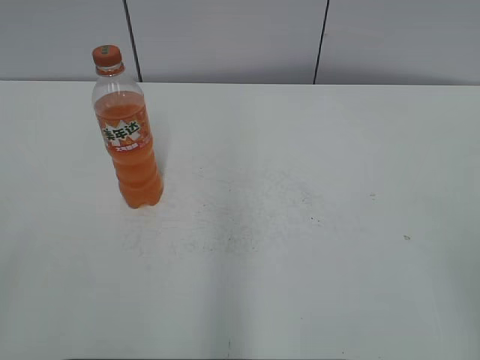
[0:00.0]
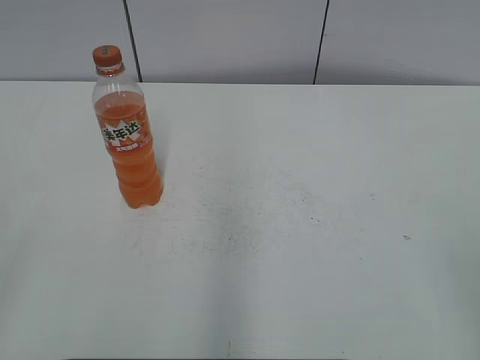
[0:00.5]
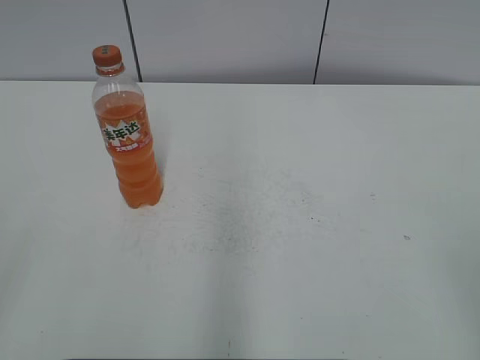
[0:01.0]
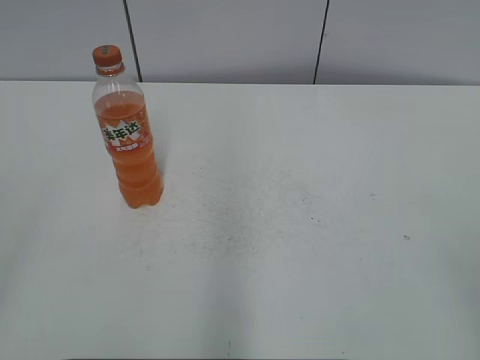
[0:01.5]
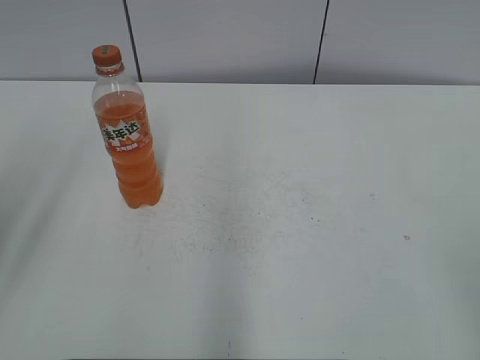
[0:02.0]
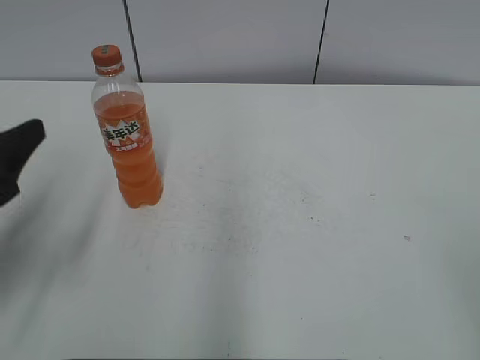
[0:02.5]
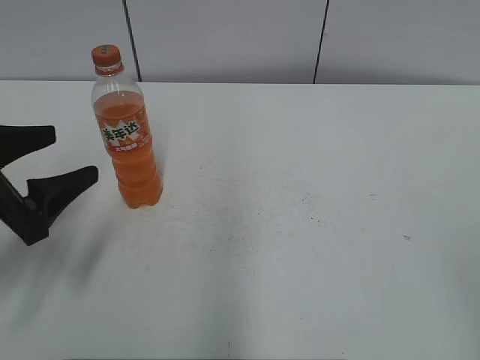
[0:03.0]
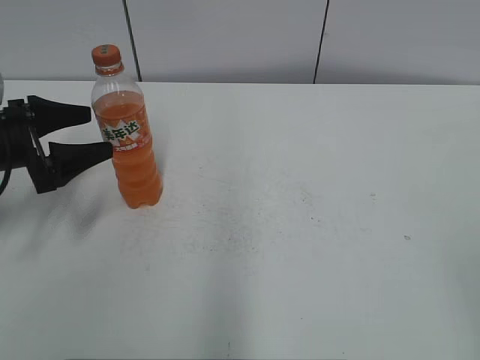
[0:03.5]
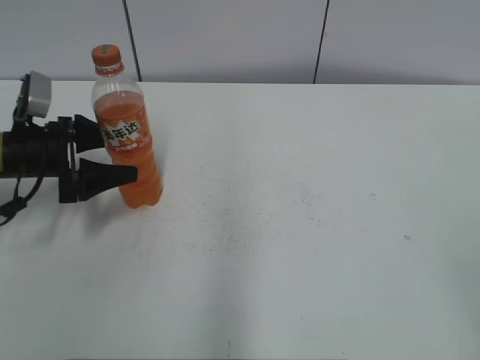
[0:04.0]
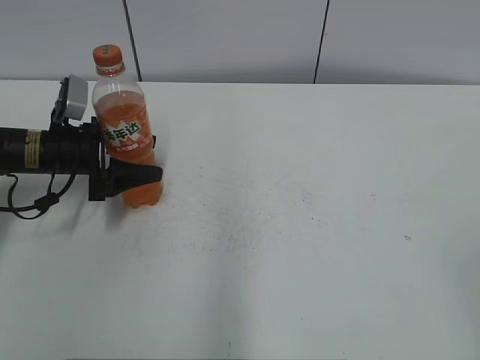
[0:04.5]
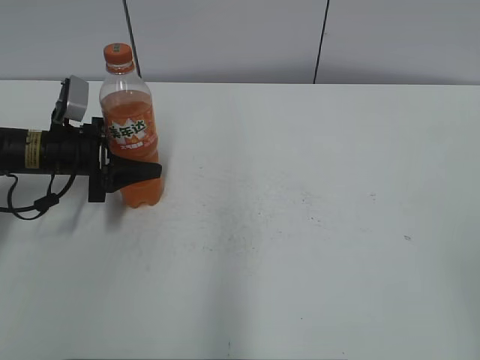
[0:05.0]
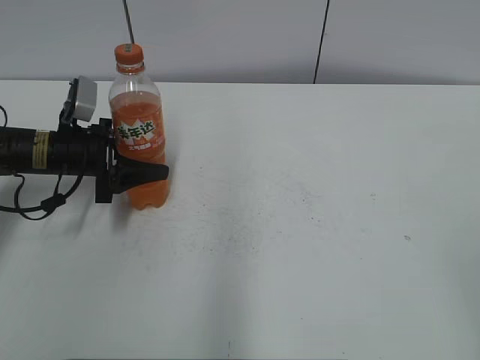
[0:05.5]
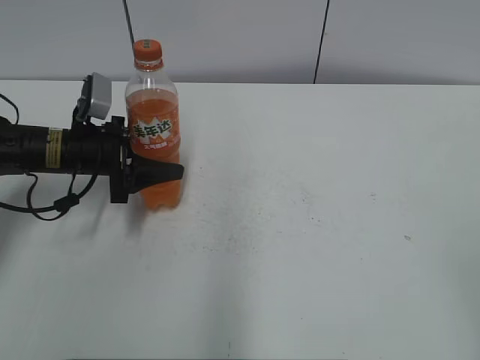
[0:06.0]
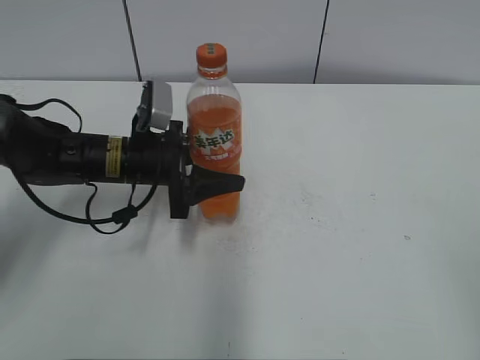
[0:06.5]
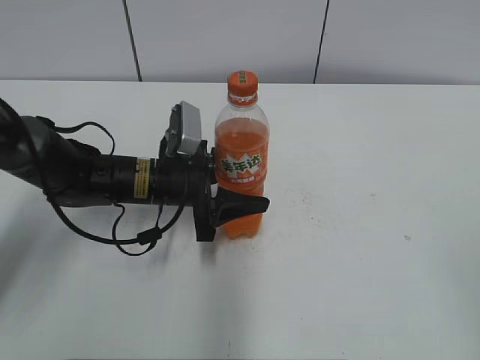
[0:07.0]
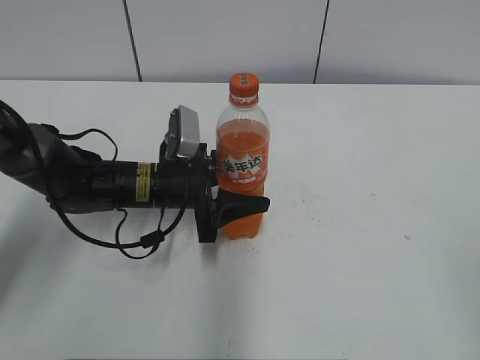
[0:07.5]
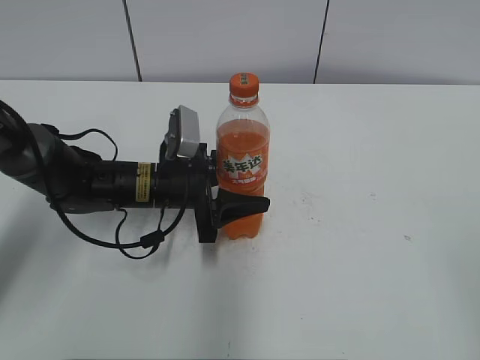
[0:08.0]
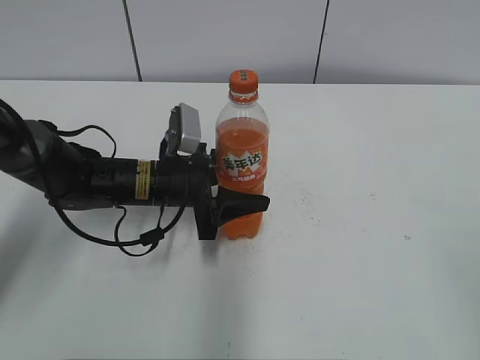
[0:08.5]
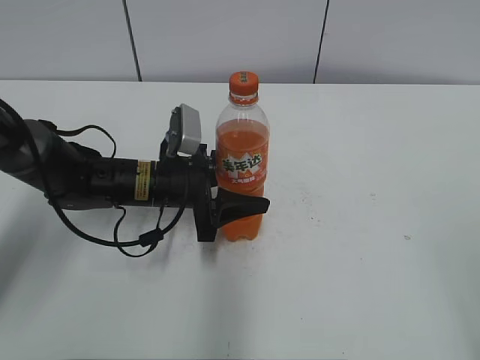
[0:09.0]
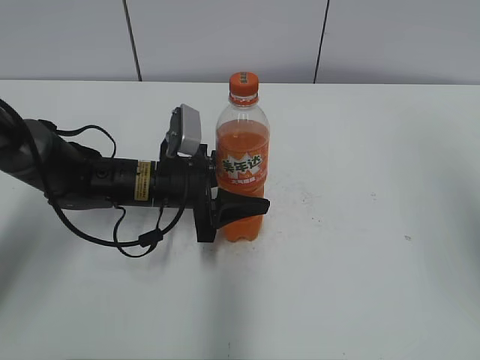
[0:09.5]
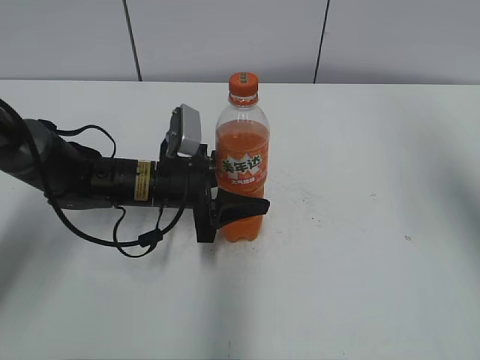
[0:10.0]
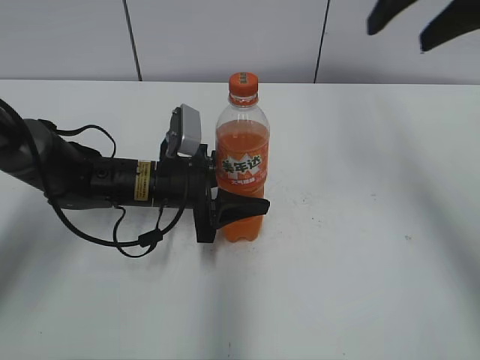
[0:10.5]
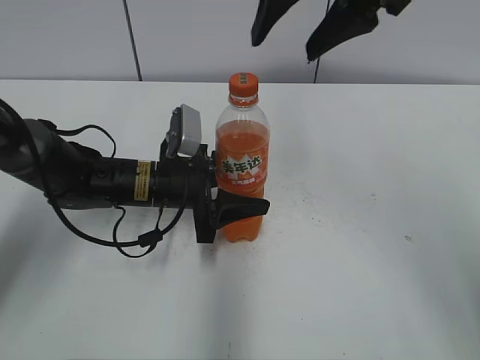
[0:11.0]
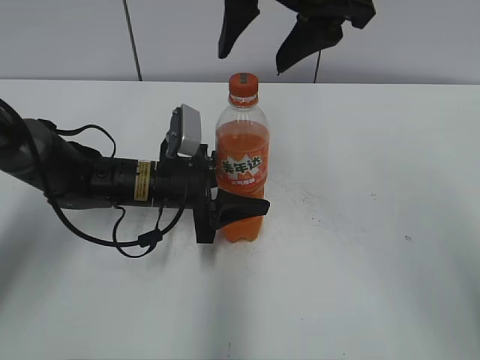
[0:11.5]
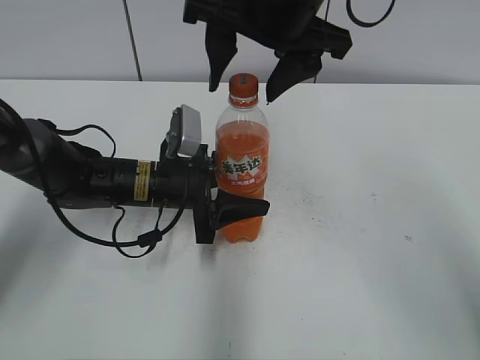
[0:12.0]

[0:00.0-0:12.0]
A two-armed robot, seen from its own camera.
Step, 0:00.0 to 0:04.5: Grab the Mirinda with the left hand.
Step, 0:05.0 to 0:09.0: Move the Mirinda from left to right.
0:02.0 to 0:04.0: The left gripper shifts about 30 cm downward and forward.
0:04.0 to 0:06.0: The left gripper shifts approximately 5 cm to the right, and closes its fingers.
0:06.0 to 0:08.0: The left gripper heads to the right, covering some 10 cm.
0:08.0 to 0:10.0: The right gripper travels forward by roughly 25 cm.
0:10.0 to 0:12.0: The right gripper is displaced to the left by about 25 cm.

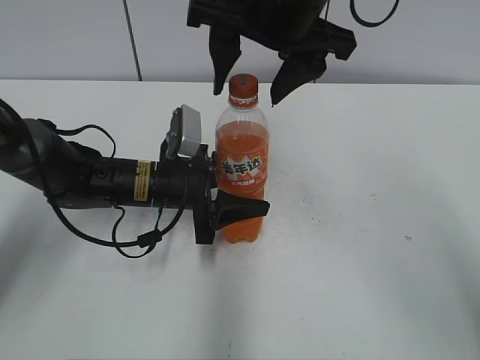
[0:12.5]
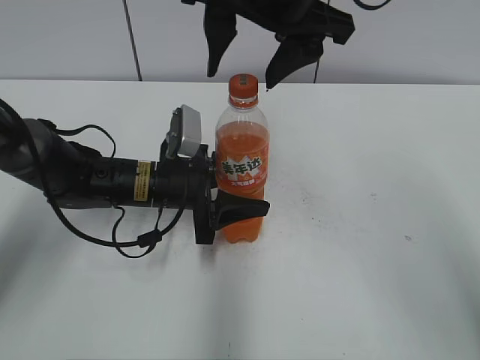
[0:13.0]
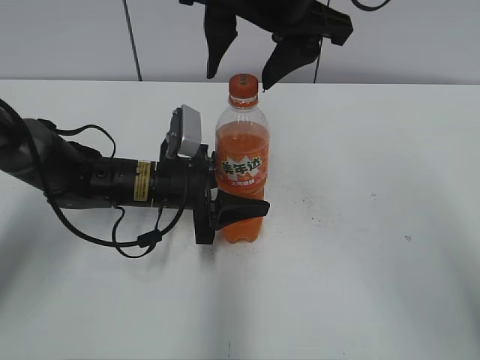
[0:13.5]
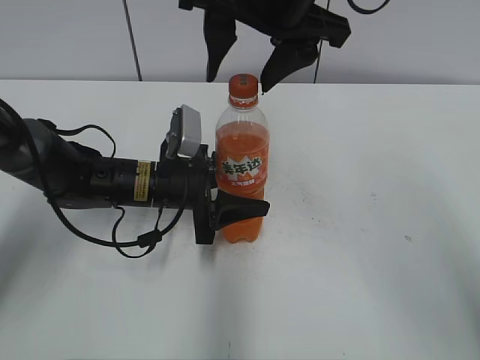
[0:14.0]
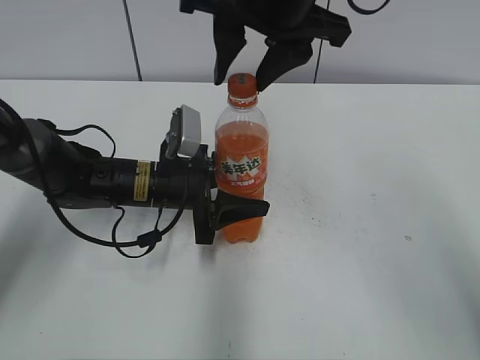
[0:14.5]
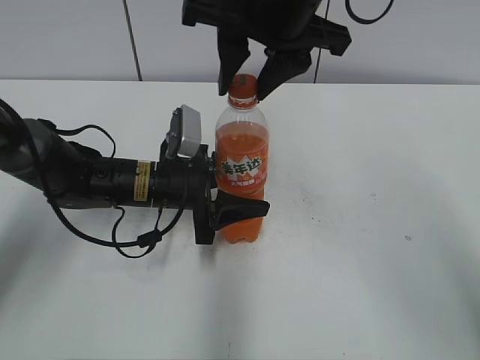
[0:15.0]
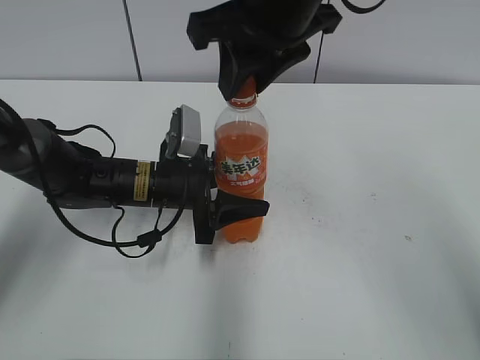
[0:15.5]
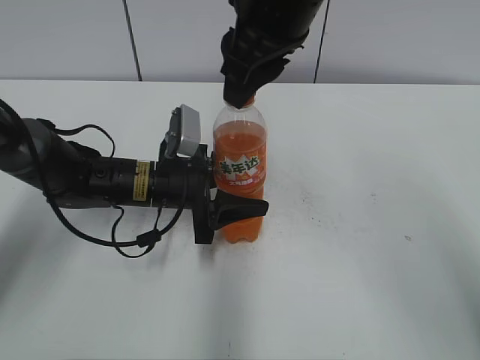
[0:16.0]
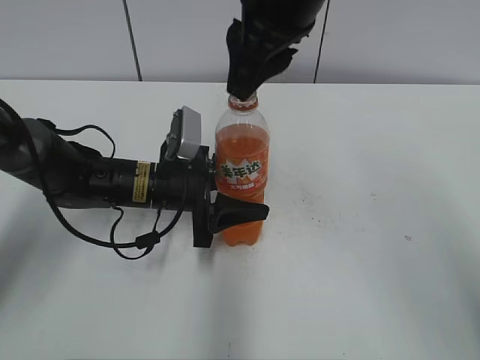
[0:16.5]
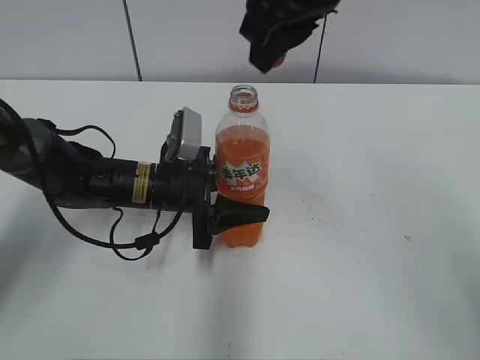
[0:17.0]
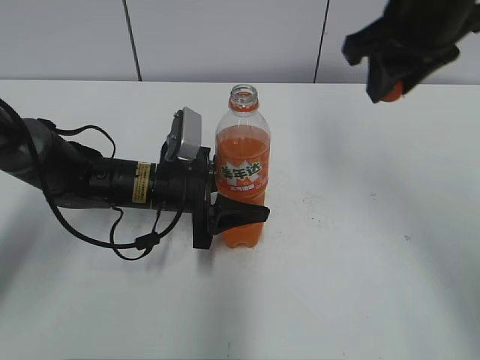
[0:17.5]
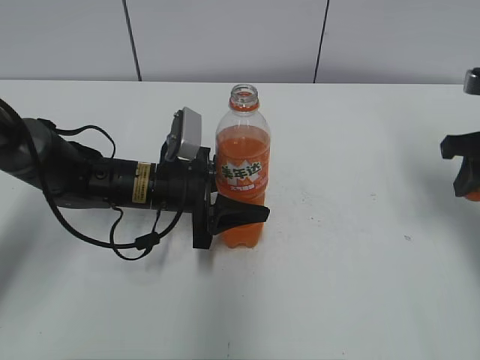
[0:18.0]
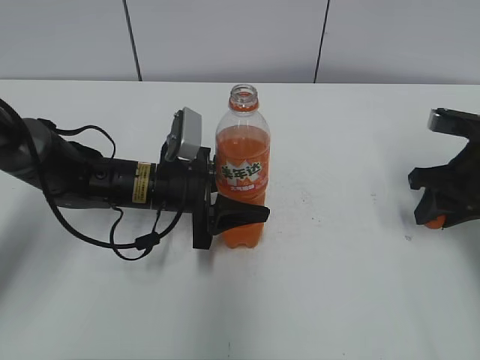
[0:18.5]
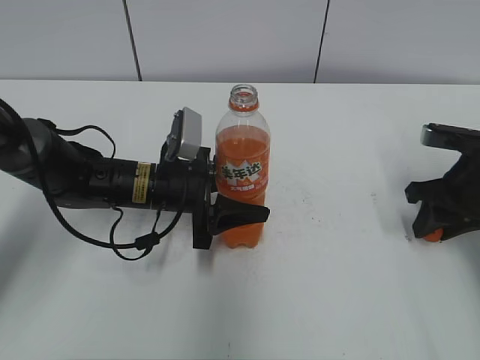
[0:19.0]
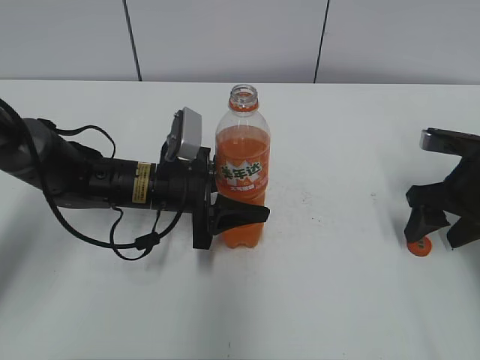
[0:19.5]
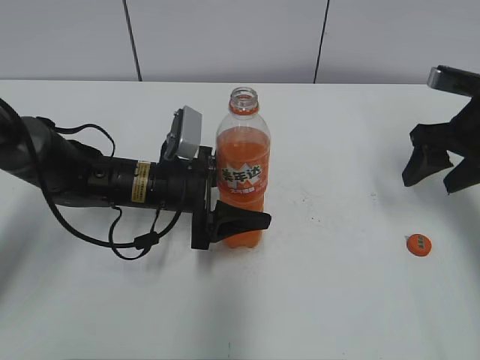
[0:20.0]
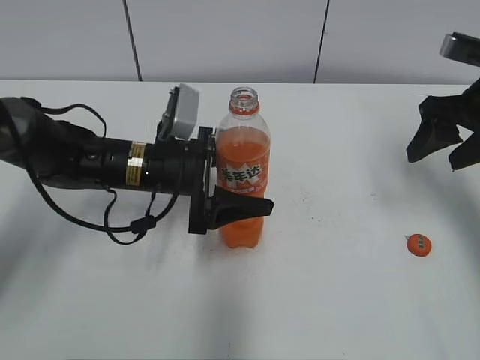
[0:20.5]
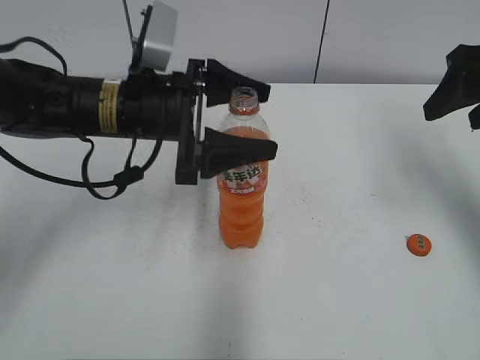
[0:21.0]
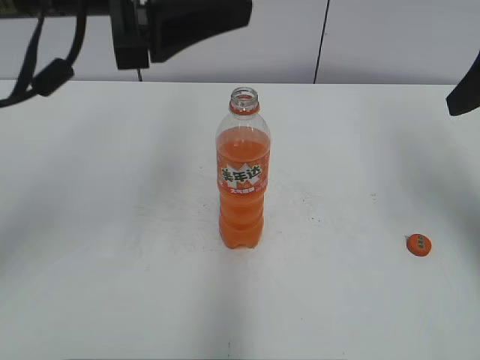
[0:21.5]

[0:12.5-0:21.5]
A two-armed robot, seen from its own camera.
Step, 0:12.5 to 0:16.0: Twist the bottle cap with the right hand.
Step, 0:17.0 to 0:19.0: Place the bottle cap on the right.
0:12.5 to 0:14.5: The right gripper closes.
0:14.5 to 0:17.0: The right gripper closes.
0:17.0 to 0:19.5: The right gripper is displaced to the right and downward by roughly 35 cm, and opens.
0:19.5 to 0:21.5: The grippers both shift upward by about 20 cm. The left gripper opens up.

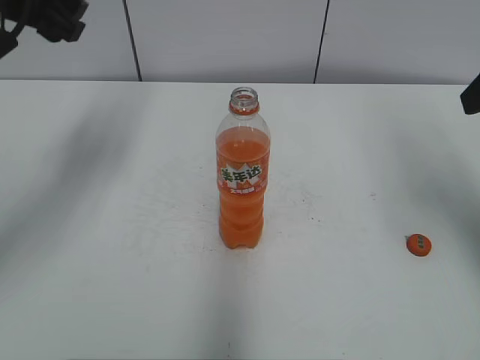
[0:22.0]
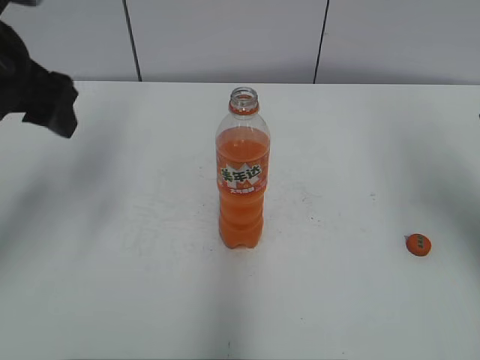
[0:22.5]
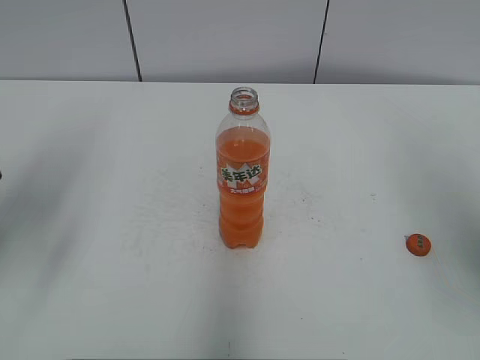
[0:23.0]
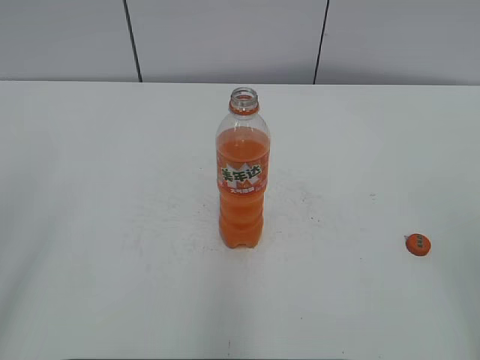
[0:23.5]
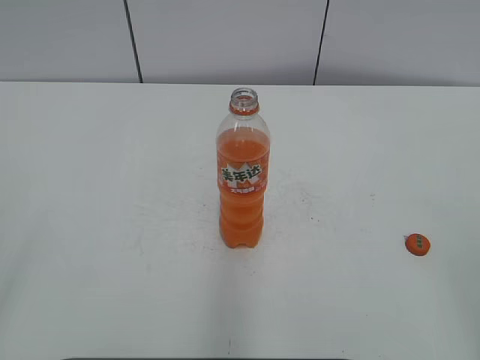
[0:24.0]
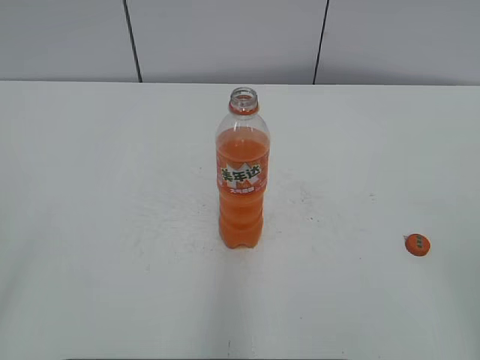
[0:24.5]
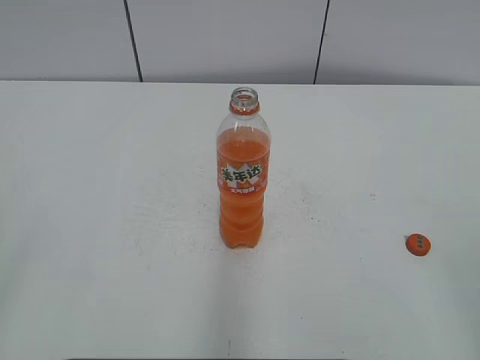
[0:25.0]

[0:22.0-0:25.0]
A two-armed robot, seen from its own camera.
0:22.0 to 0:23.5: Both grippers move backward, about 25 cm.

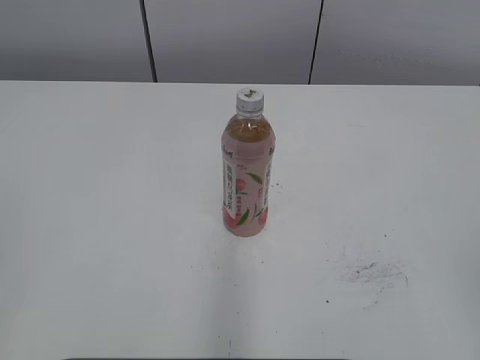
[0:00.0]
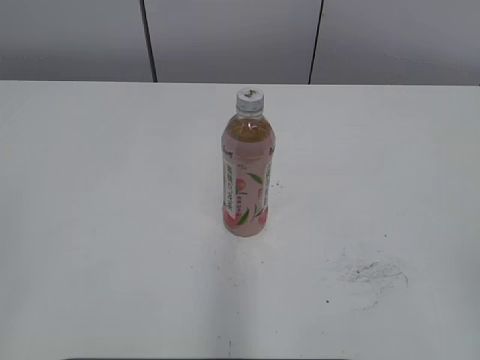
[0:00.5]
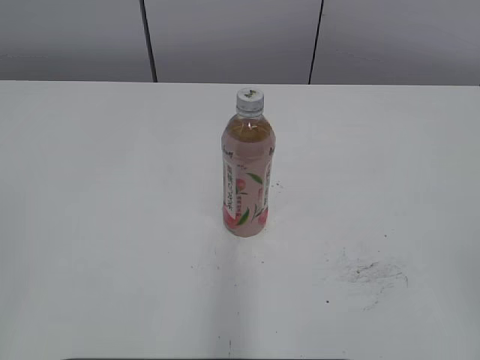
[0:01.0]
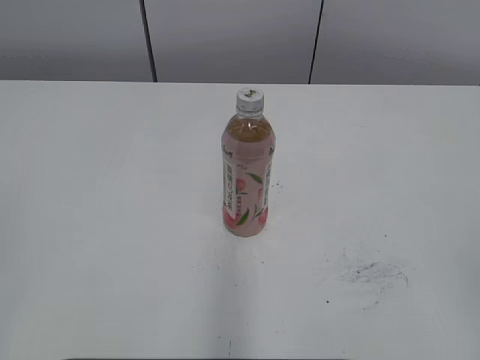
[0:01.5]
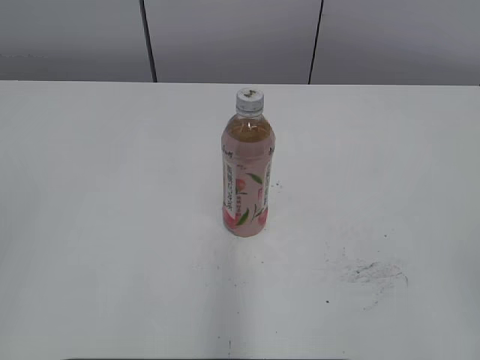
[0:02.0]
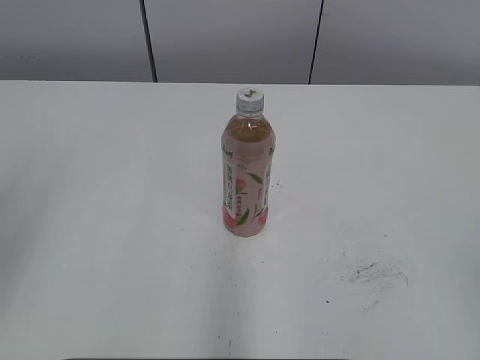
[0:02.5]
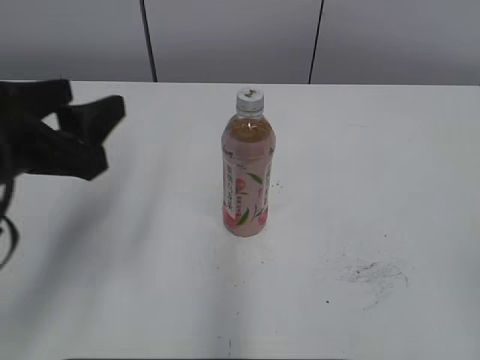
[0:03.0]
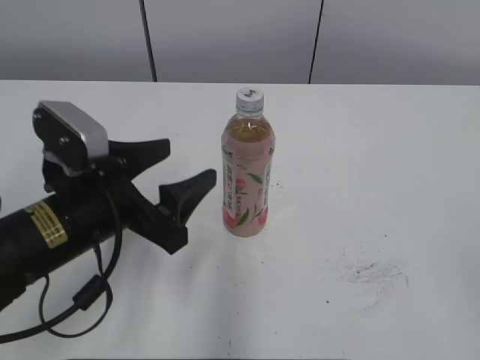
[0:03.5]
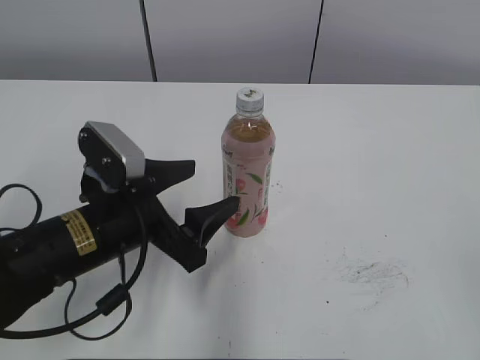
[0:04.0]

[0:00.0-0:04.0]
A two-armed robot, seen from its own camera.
0:02.0 to 0:04.0: The left gripper heads forward, downward and to the right, covering approximately 35 cm, and opens up.
